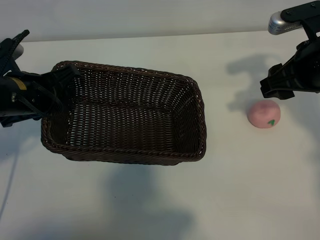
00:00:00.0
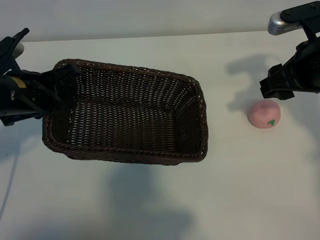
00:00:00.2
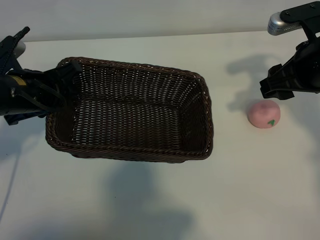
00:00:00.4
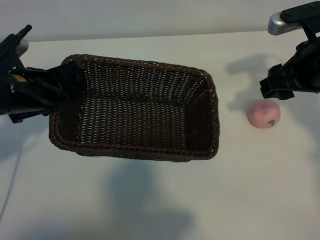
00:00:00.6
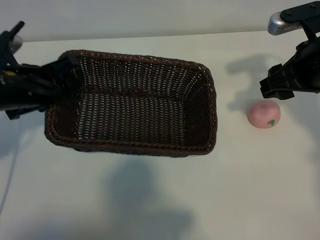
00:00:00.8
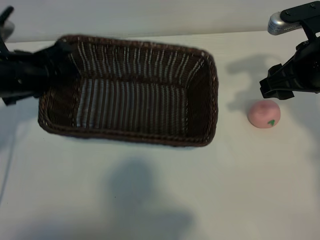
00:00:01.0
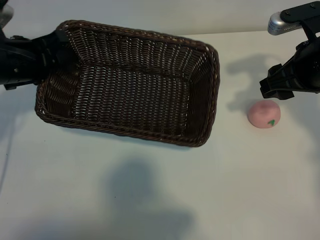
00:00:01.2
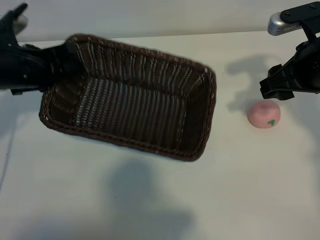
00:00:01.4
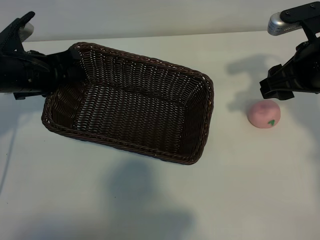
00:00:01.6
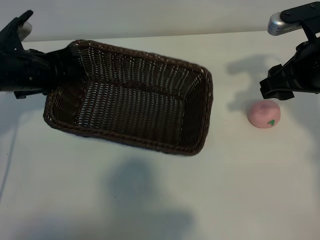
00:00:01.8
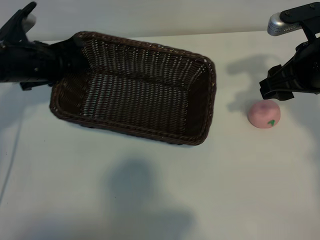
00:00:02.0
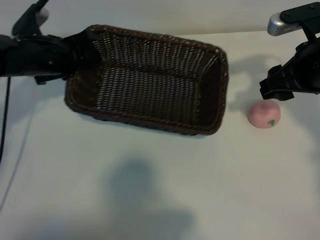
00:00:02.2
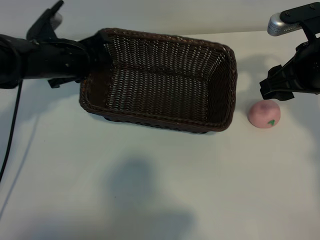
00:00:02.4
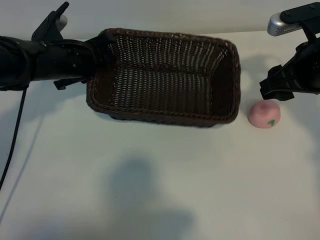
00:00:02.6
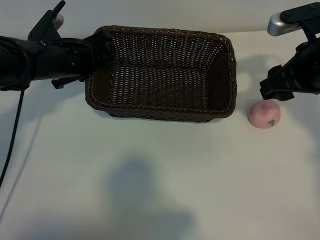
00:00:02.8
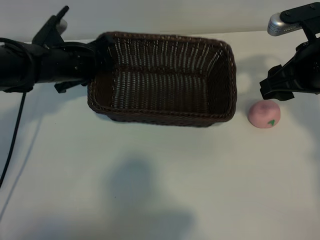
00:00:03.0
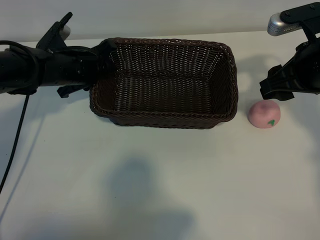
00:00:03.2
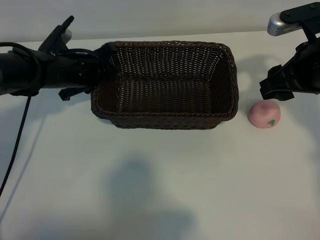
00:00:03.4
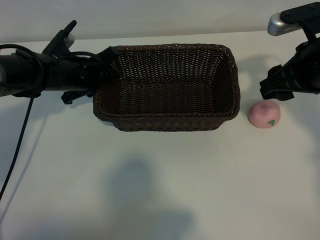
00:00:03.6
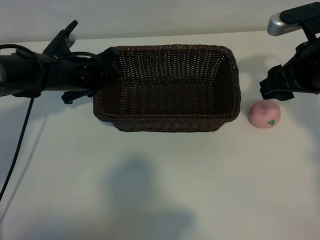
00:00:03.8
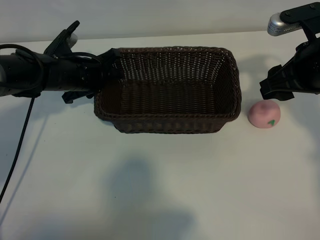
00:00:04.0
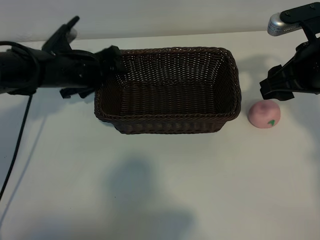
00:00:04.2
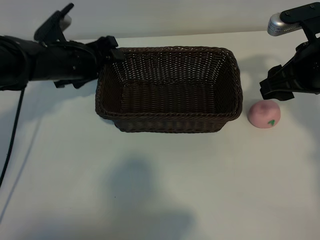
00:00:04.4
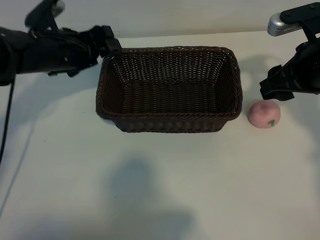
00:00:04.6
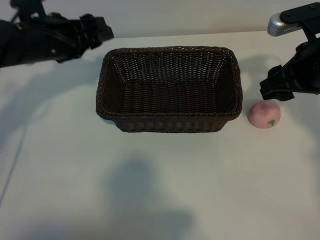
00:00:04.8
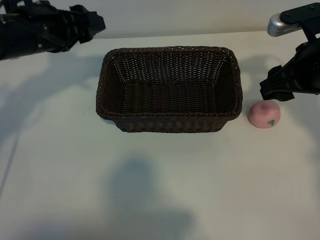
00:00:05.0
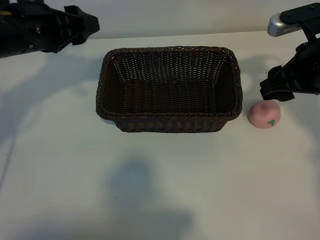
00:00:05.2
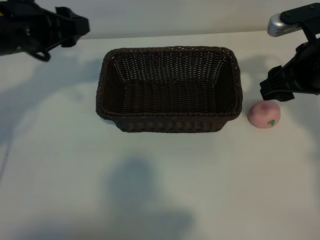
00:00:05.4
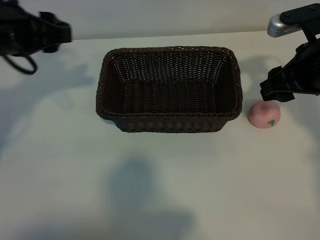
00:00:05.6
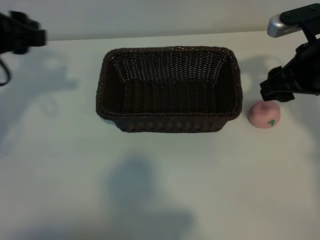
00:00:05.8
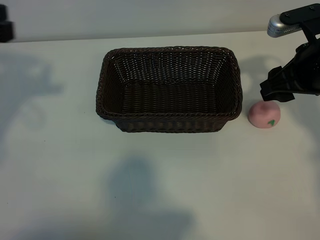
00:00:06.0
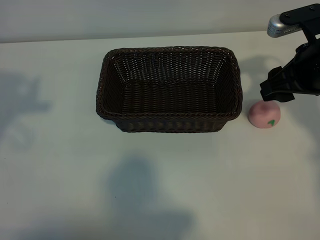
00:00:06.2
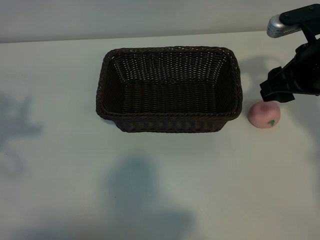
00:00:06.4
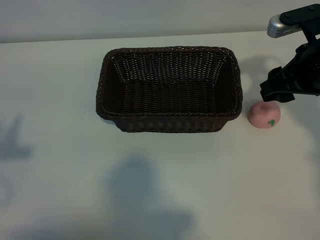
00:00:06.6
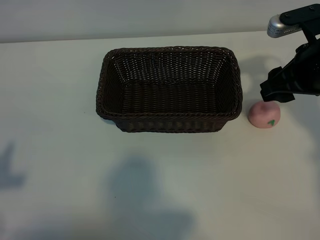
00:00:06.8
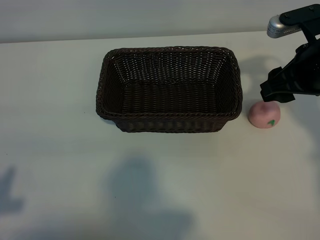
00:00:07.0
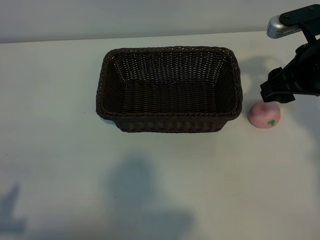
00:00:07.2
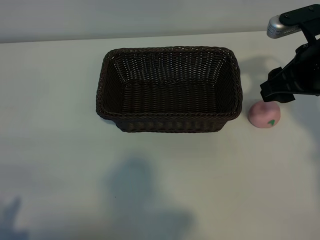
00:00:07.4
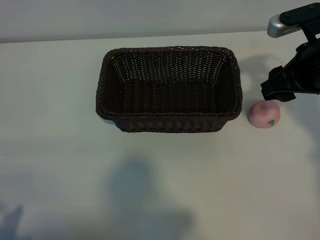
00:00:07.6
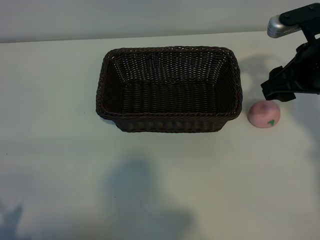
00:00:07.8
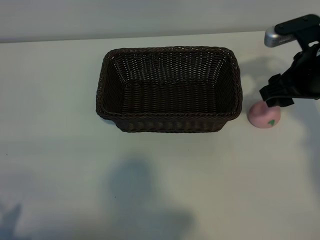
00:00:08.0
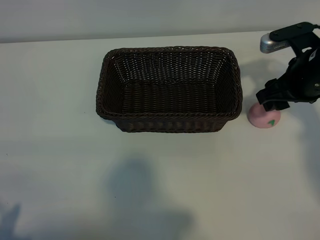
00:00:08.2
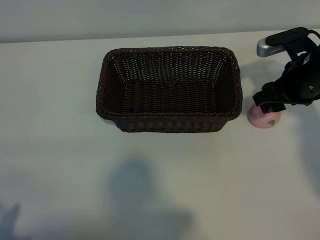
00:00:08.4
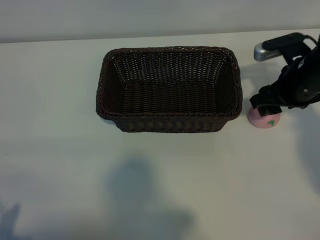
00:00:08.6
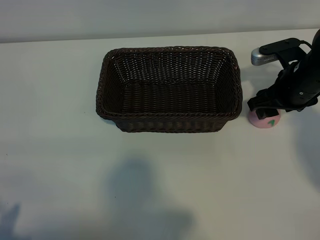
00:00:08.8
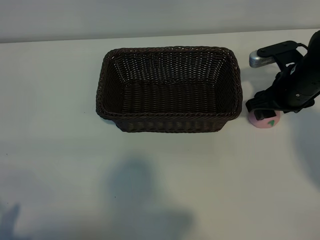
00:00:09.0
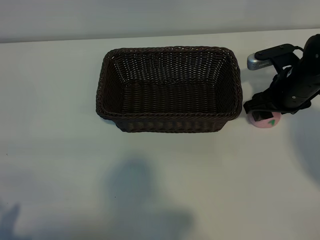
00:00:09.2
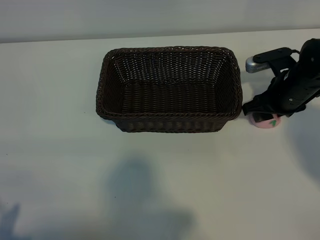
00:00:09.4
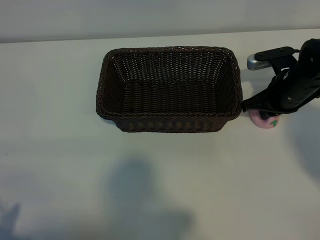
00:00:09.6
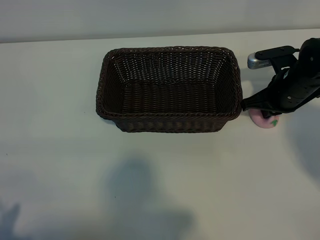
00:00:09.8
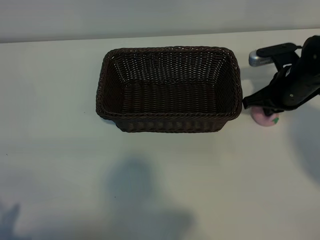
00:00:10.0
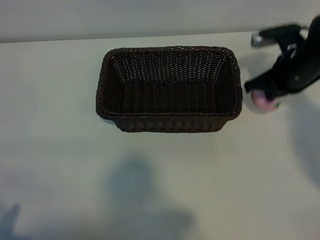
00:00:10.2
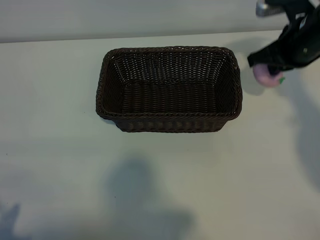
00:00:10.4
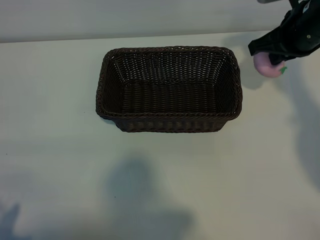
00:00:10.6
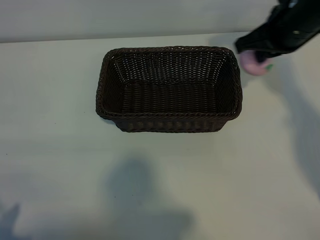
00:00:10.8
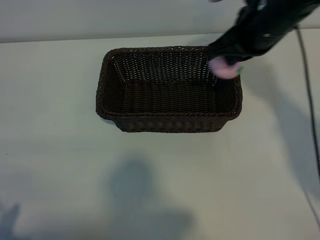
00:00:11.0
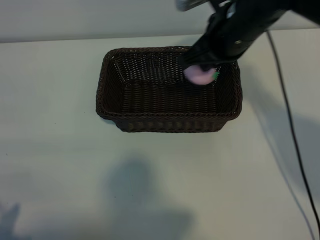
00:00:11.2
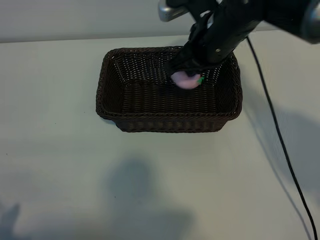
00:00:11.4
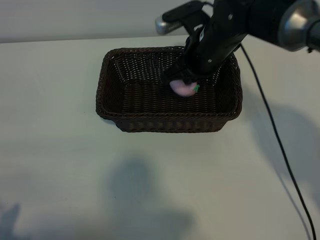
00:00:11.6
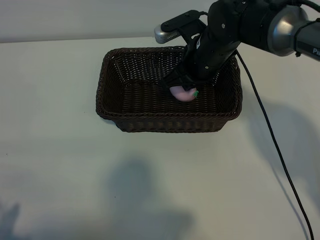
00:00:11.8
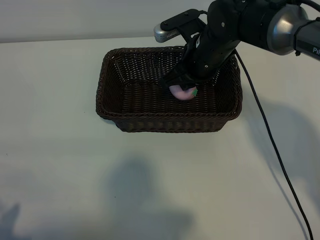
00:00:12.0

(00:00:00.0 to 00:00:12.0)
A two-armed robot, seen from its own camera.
Task of the whole recording: pick up the peach and put it into the basket.
Step, 00:00:00.0 - 00:00:04.4: Place the basket in the center of view with left gripper.
Step, 00:00:04.6 - 00:00:09.8: Grasp the peach with right gripper.
